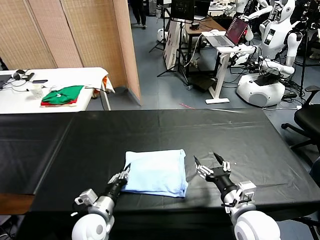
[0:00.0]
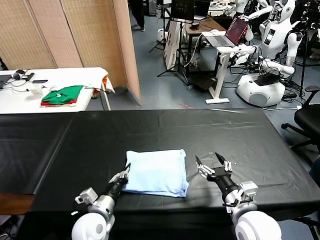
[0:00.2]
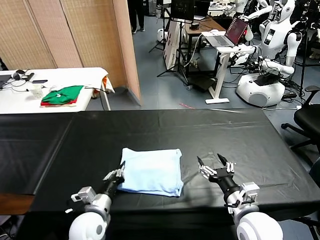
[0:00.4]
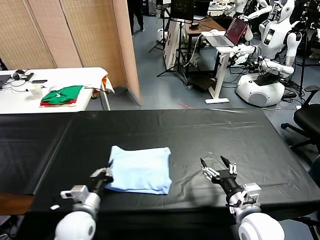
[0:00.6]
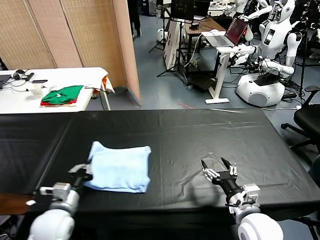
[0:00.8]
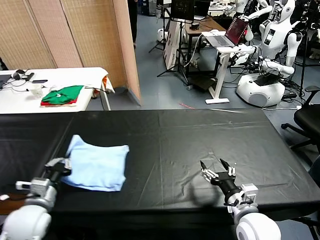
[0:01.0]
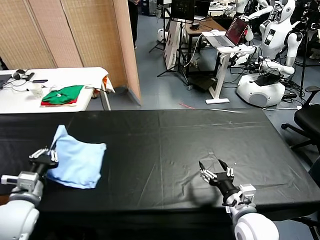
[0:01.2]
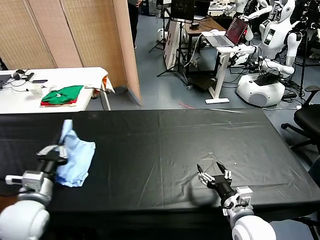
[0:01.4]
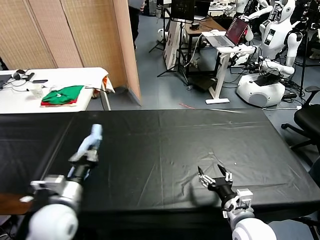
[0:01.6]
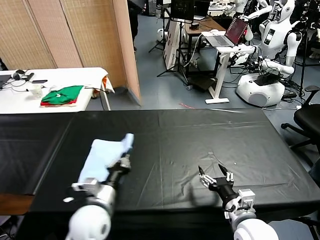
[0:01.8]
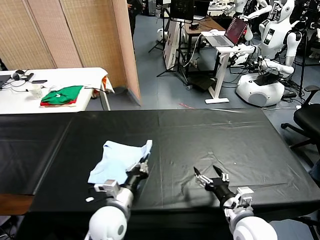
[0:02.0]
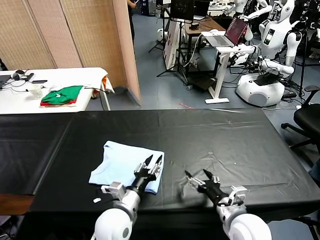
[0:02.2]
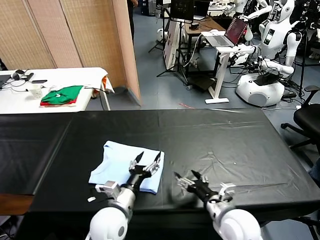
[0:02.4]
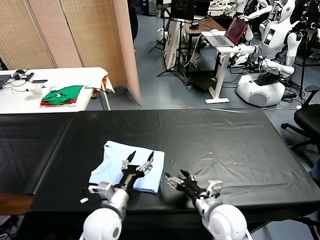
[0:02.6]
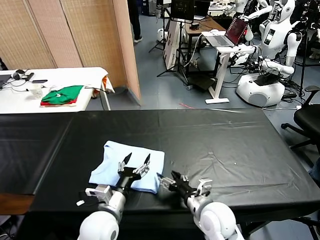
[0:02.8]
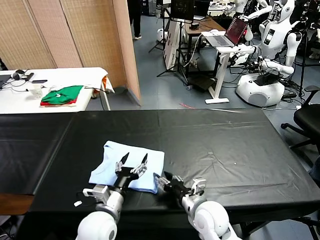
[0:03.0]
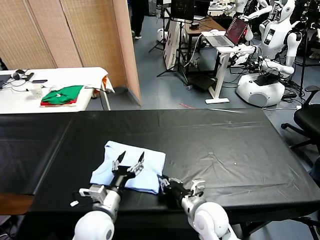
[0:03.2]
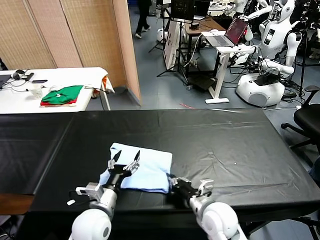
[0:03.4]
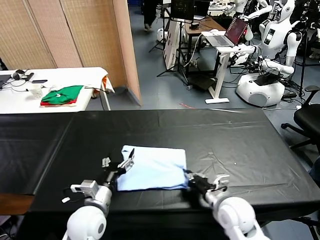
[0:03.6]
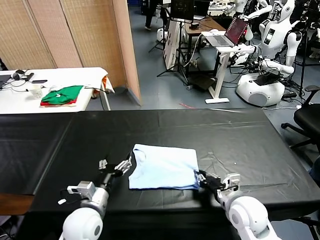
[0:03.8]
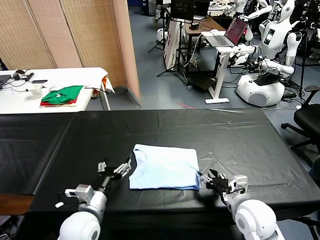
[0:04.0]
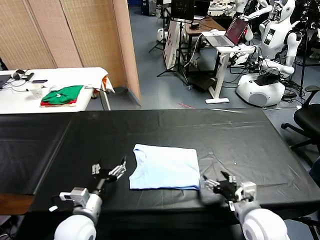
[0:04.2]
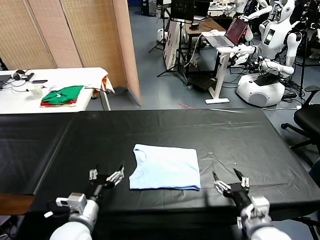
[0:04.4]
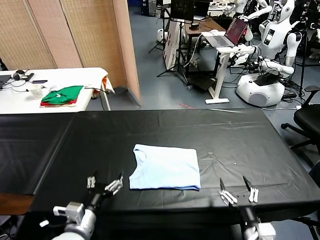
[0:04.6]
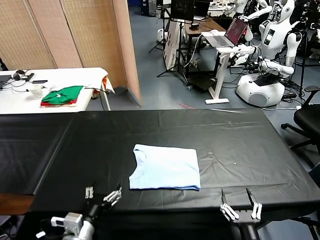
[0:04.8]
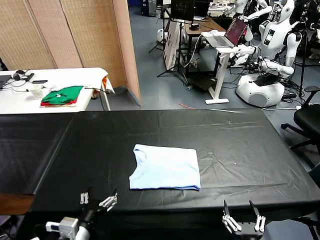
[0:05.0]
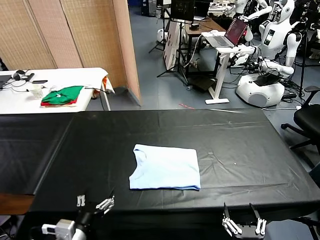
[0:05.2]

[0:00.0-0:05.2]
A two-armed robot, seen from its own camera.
Task of the whole recording: fold and organize the clothes.
Step, 0:00.0 to 0:02.0: Flip the folded clothes over with left gripper.
Step, 0:02.4 to 0:03.8: Drag the clothes to the center of the table.
0:00.0 to 0:01.8: The left gripper goes approximately 10 cm upward, and reaches roughly 15 cm to the left, then returns.
0:01.8 to 0:03.4: The right gripper travels to the left and forward by about 10 cm, and closes its fingers, while the left gripper opens its fingers.
0:03.4 to 0:05.2: The left gripper is displaced backward and to the left by about 10 cm. The right gripper travels backward by roughly 20 cm, and opens its fingers.

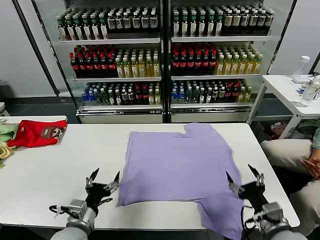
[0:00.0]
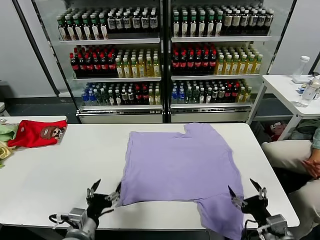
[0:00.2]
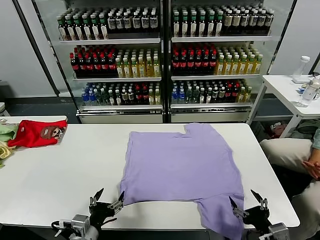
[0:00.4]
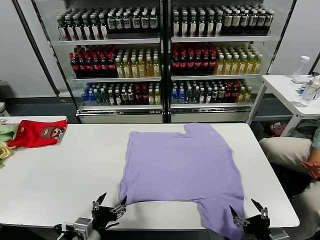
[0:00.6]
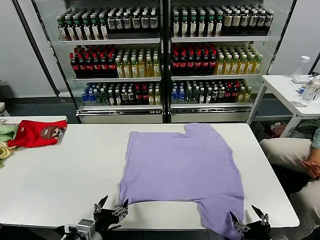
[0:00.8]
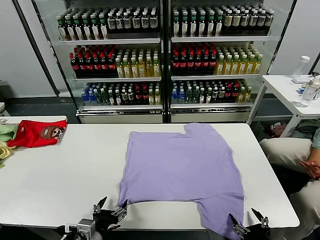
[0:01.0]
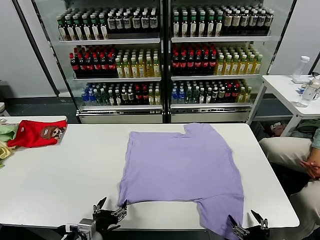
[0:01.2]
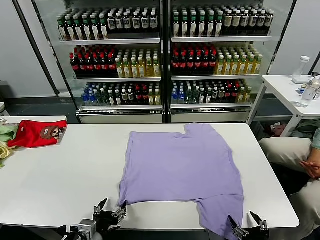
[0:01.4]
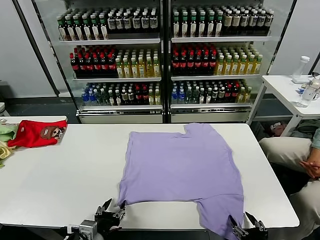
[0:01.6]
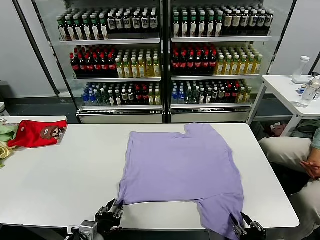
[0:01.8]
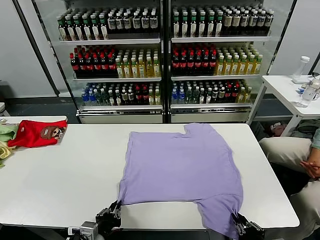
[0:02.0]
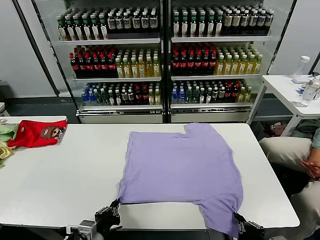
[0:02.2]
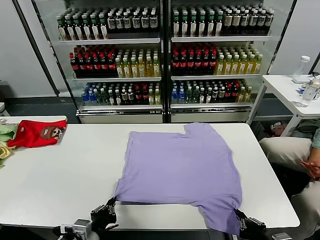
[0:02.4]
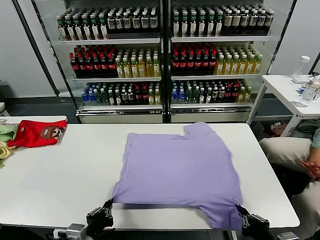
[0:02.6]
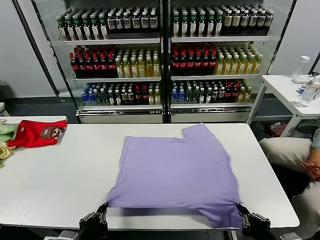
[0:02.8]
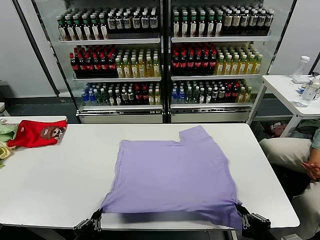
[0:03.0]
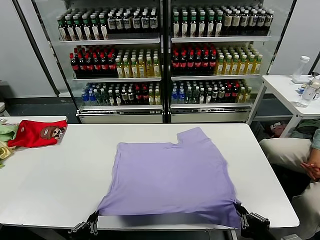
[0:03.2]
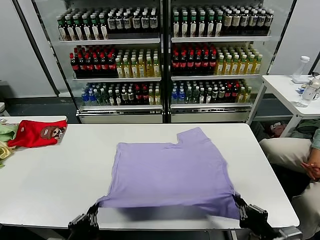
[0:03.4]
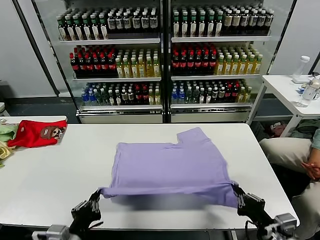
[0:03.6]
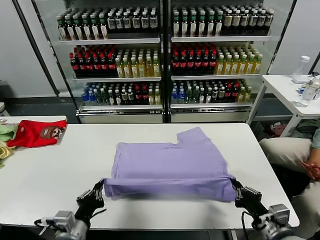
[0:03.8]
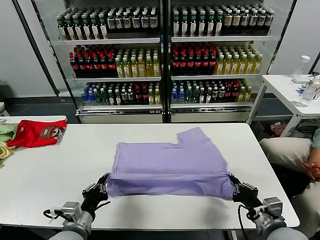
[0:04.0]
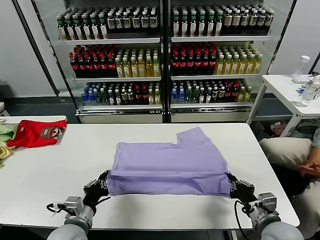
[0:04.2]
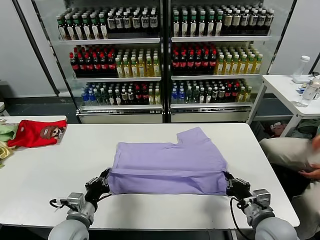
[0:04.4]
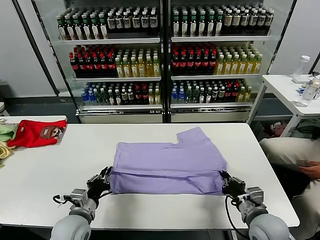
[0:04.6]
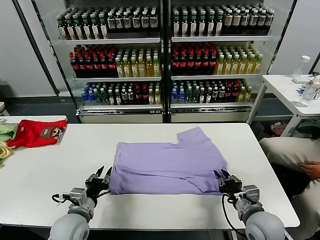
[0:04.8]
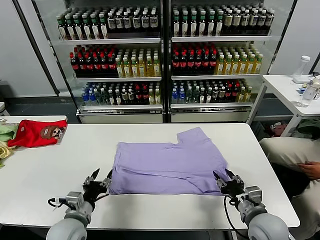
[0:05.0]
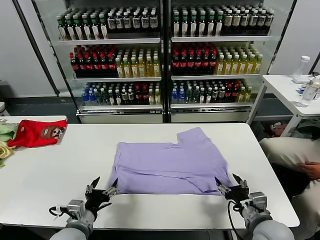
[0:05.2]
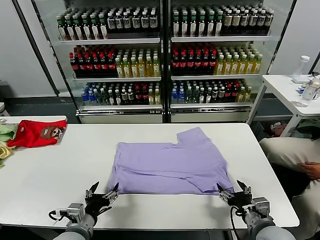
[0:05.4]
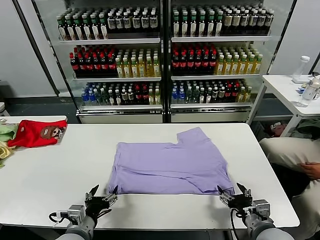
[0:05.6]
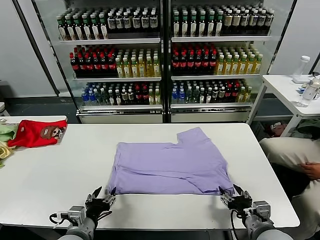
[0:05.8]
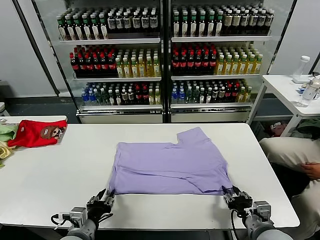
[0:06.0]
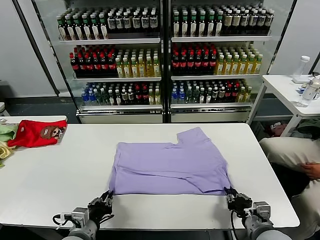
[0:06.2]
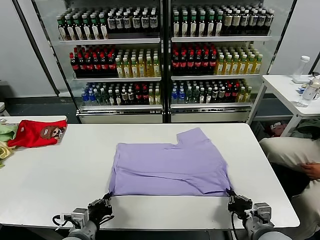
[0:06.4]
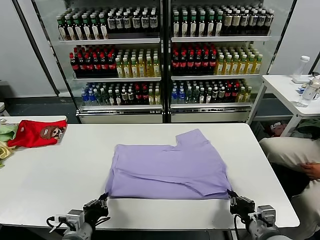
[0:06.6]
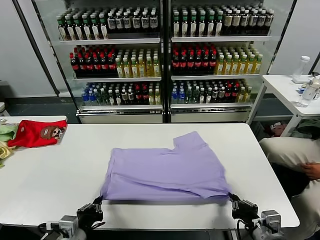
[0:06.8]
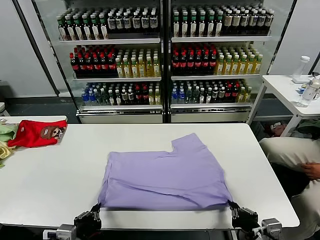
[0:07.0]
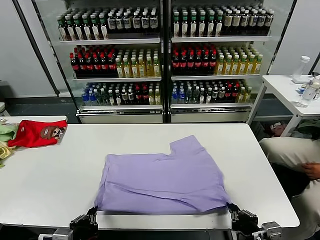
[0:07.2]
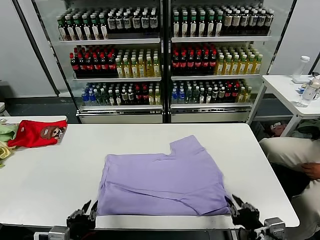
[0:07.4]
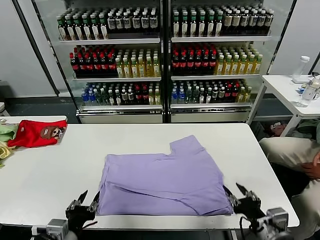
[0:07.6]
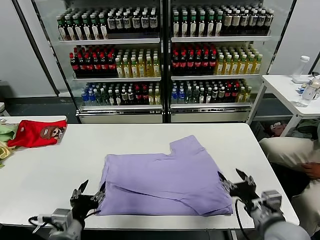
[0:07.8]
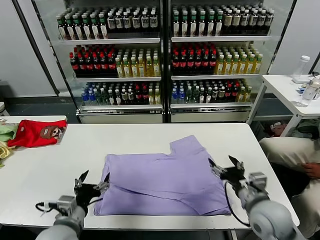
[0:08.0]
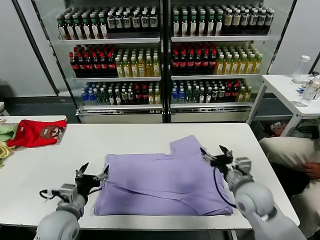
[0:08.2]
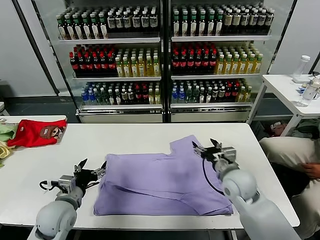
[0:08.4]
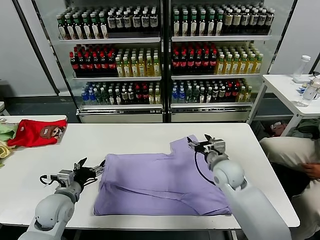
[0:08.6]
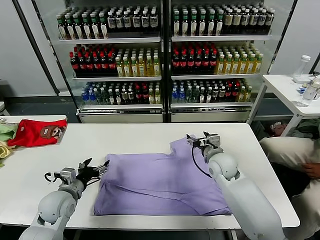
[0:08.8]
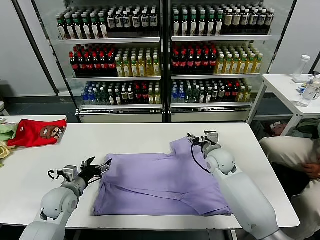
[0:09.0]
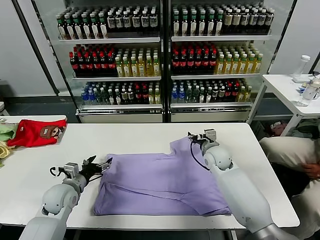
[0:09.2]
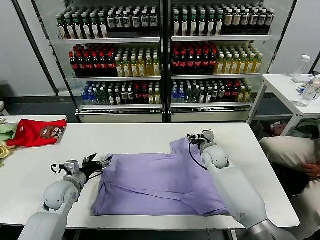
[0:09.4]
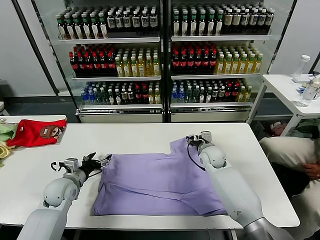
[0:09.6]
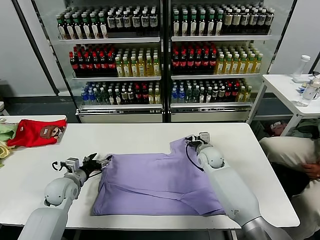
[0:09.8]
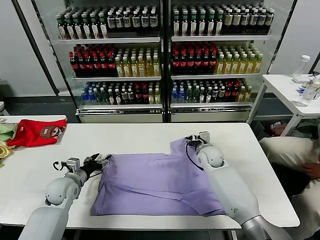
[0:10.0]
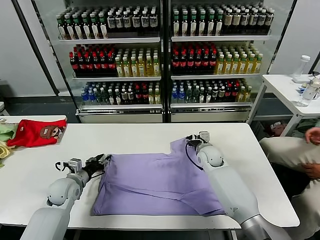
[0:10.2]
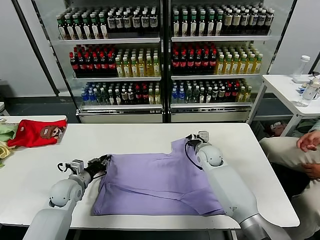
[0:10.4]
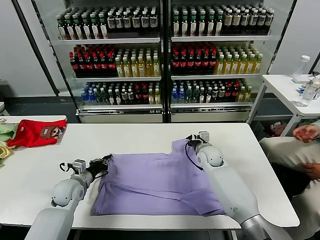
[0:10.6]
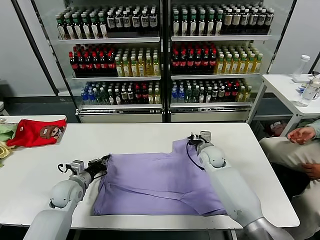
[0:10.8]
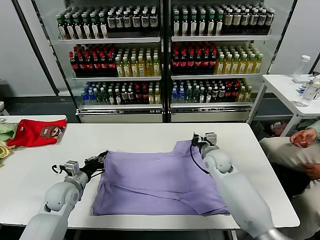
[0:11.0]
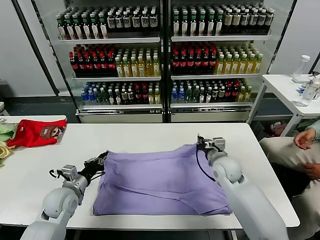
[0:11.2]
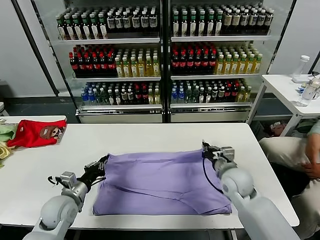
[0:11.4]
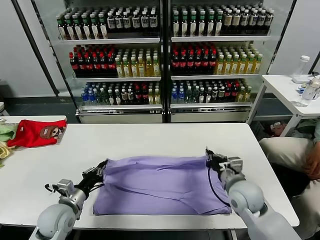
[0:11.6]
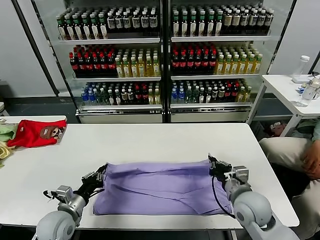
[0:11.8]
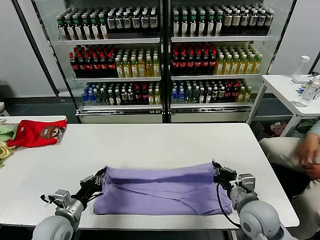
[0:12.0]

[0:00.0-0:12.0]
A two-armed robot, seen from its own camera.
Task of the whole recording: fold and organize the clothes.
Step, 0:00.0 to 0:02.0: use both grippers simultaneously to clamp the lower edge of the clothing fabric.
Step, 0:02.4 to 0:04.8: use both grippers to drag the lower edge of the fabric forward and fold it over the upper edge.
Step, 0:05.0 to 0:07.6: Drag the clothes downward with both gripper.
Step, 0:07.8 to 0:10.6: use both grippers simultaneously to clamp the upper edge of the clothing fabric.
0:01.6 to 0:03.0: The right gripper is displaced upward by roughly 10 cm, and closes its fingers. The left gripper goes roughly 10 cm backward and upward, and closes its fingers.
0:03.0 to 0:04.4: Both grippers move forward and downward, about 15 cm.
0:04.4 to 0:06.0: The right gripper opens and closes again, while the left gripper opens.
0:06.0 to 0:07.6: The left gripper goes approximately 10 cm upward and backward, and closes, then opens again, while the right gripper heads upward, covering some 5 cm, and opens its fingers.
0:07.6 to 0:09.0: The left gripper goes some 20 cm forward, and opens its fingers. Meanwhile the right gripper moves forward, some 30 cm.
0:09.0 to 0:10.4: The left gripper moves about 5 cm, and closes up. The right gripper moves about 5 cm, and closes its fingers.
0:10.4 to 0:12.0: The right gripper shifts approximately 25 cm backward, while the left gripper moves backward, about 15 cm.

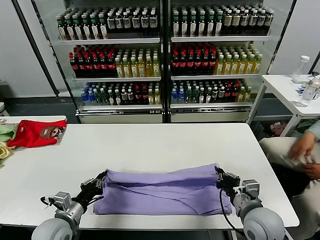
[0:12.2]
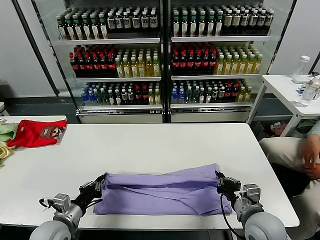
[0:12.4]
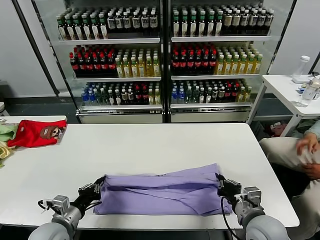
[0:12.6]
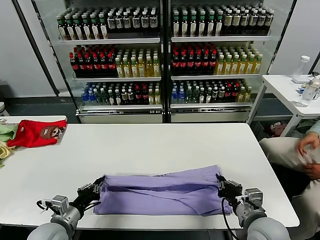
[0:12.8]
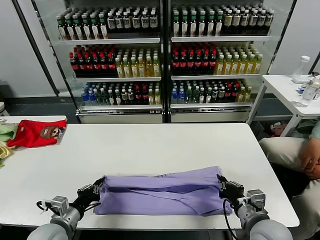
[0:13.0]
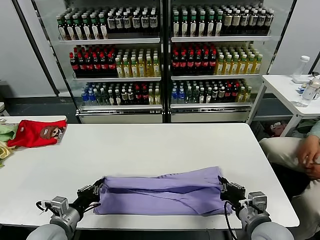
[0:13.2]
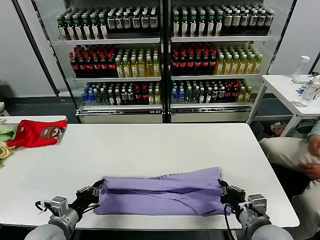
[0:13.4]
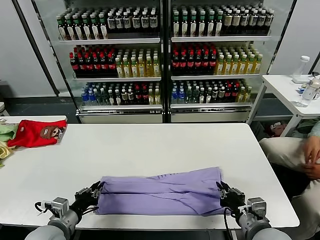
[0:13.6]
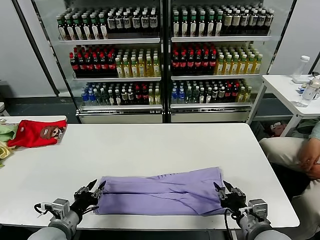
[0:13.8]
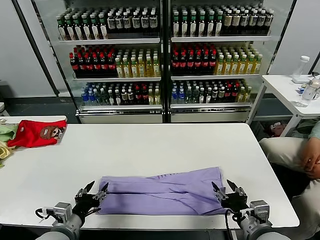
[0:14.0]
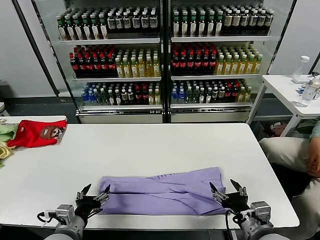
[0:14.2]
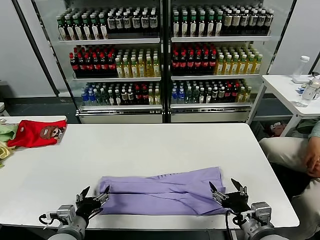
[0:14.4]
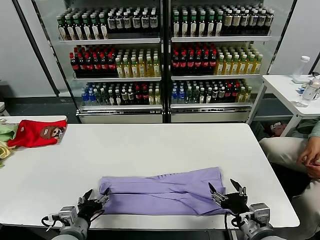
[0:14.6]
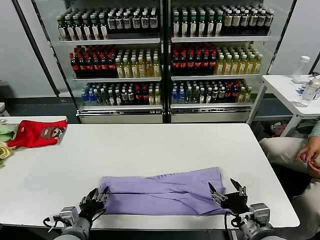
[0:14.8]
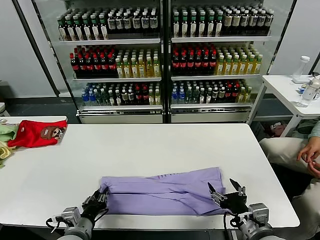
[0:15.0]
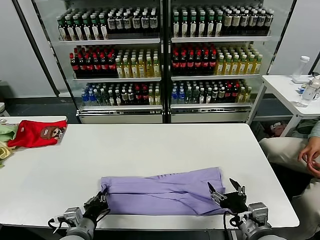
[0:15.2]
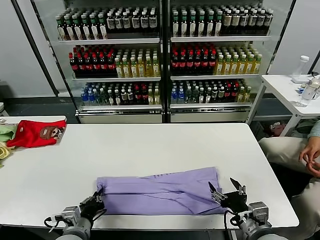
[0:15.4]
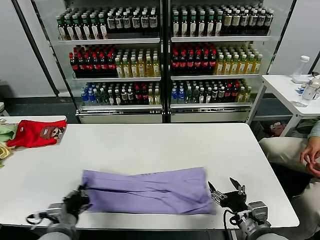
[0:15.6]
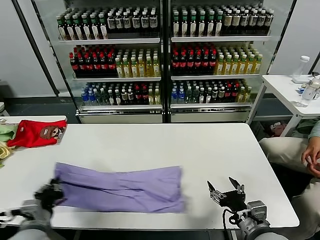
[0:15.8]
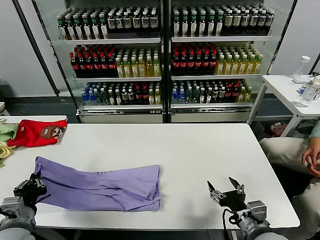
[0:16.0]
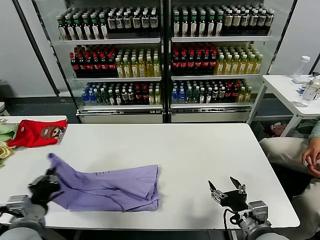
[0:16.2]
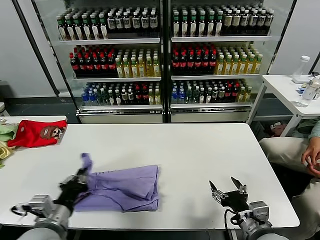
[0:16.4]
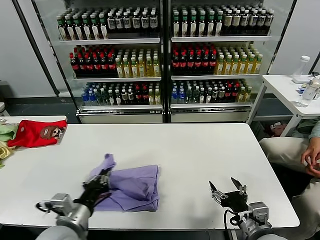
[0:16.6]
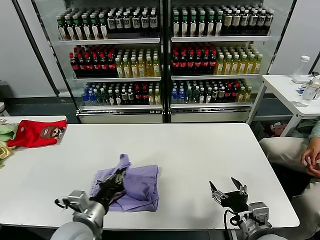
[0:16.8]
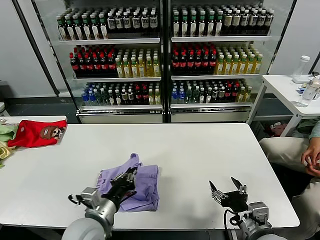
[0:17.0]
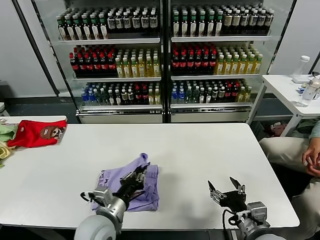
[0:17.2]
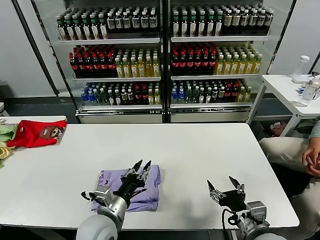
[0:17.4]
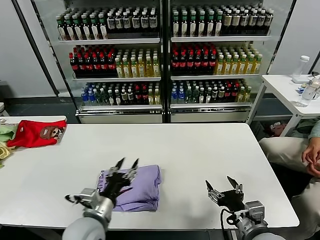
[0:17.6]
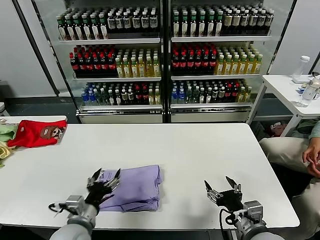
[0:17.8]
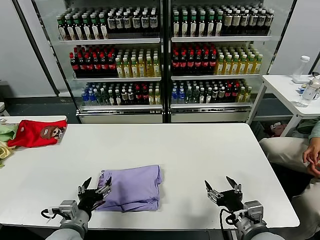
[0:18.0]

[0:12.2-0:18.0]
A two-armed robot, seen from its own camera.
Task of the whole recording: fold and organize the clothes.
Step, 0:12.2 to 0:14.0: use both grippers to drag the upper edge of the fabric backward and fold it over the lower edge.
Step, 0:14.4 to 0:15.2: use the left gripper to clamp the left edge of the fabric.
Step, 0:15.4 to 0:17.6: use the left gripper to drag the left edge of the fabric to the left and folds it over the right edge.
0:12.2 to 0:13.6: The right gripper goes approximately 5 cm backward.
0:13.6 to 0:15.0: The left gripper travels to the right by approximately 5 cm, and opens, then closes once more; the right gripper opens its fingers.
0:15.0 to 0:16.6: The left gripper heads upward, covering about 10 cm, travels to the left and back again, about 10 cm each way, and closes up.
0:16.6 to 0:18.0: The left gripper shifts roughly 10 cm downward, reaches some 10 cm to the right, then returns, and opens.
